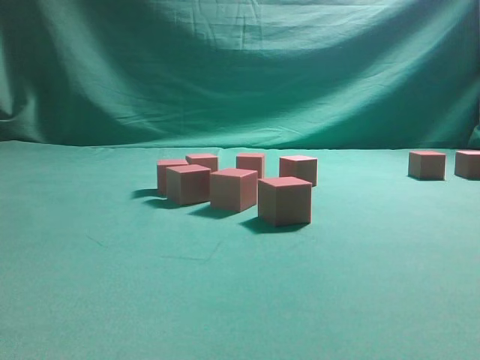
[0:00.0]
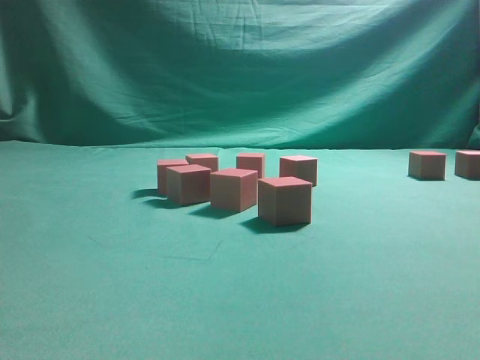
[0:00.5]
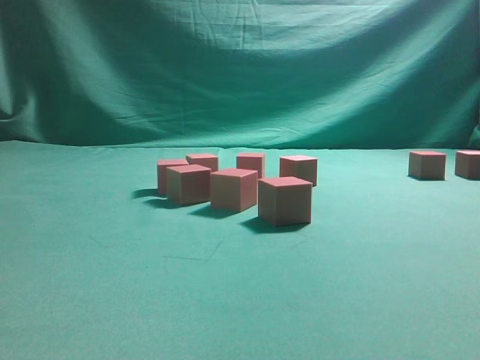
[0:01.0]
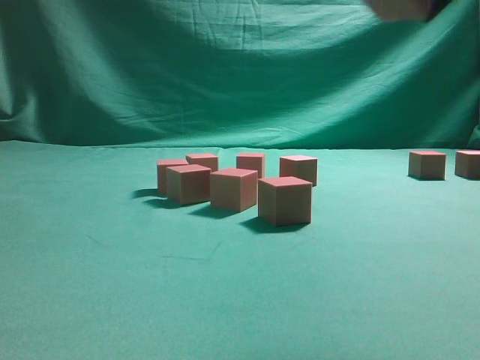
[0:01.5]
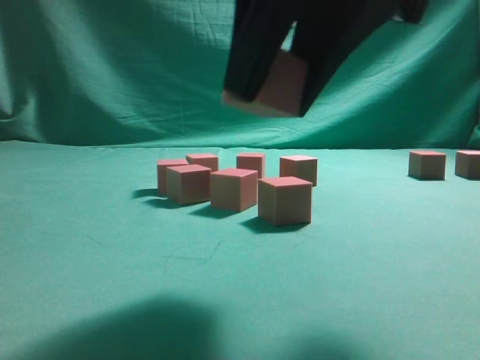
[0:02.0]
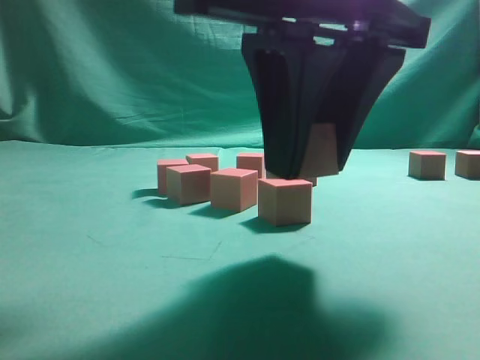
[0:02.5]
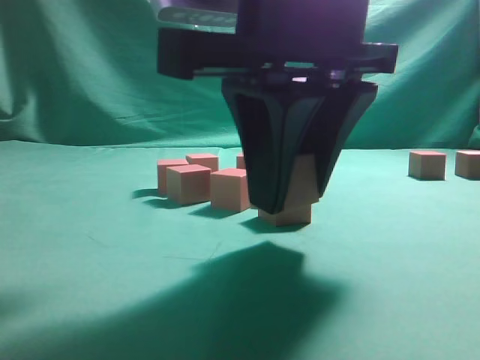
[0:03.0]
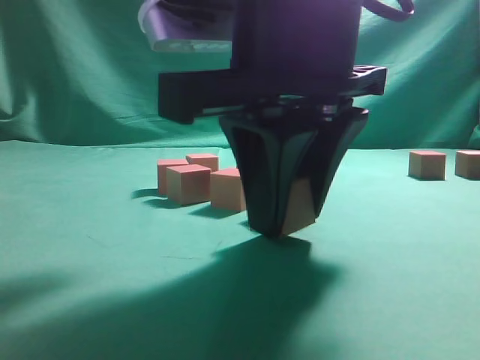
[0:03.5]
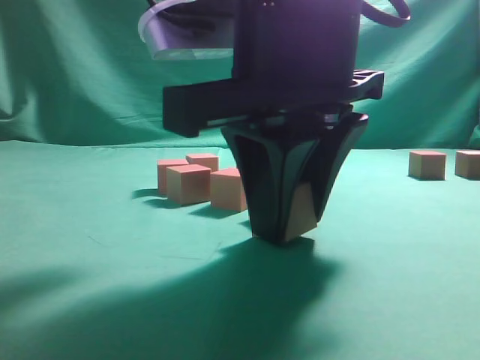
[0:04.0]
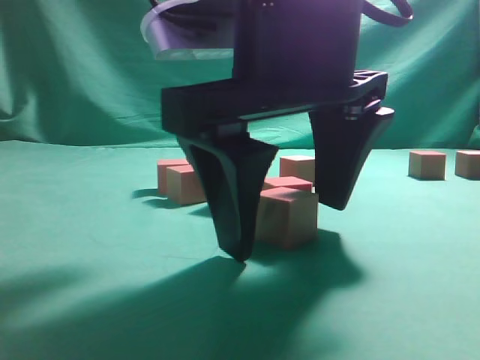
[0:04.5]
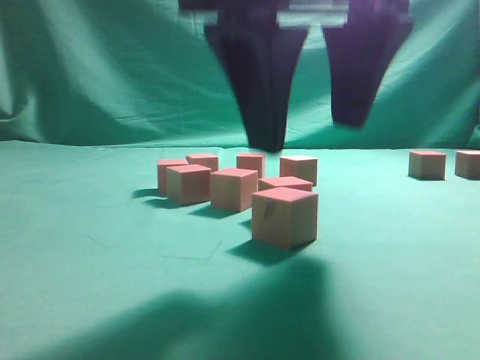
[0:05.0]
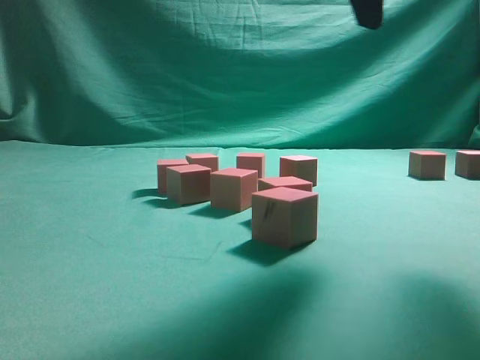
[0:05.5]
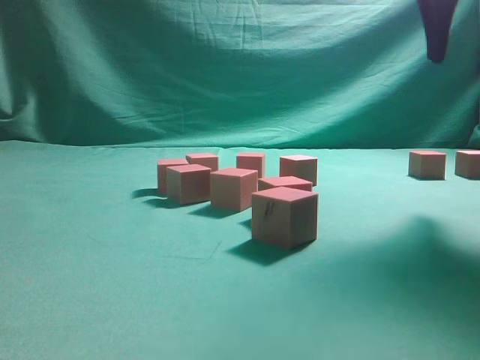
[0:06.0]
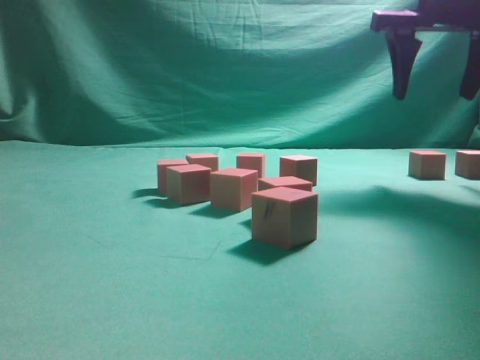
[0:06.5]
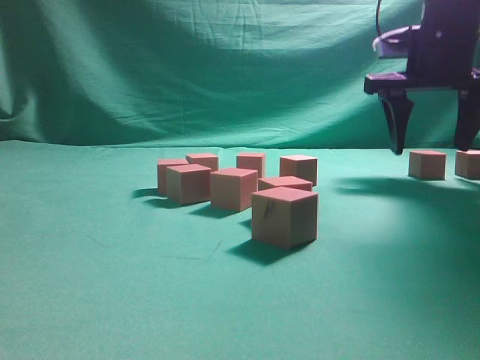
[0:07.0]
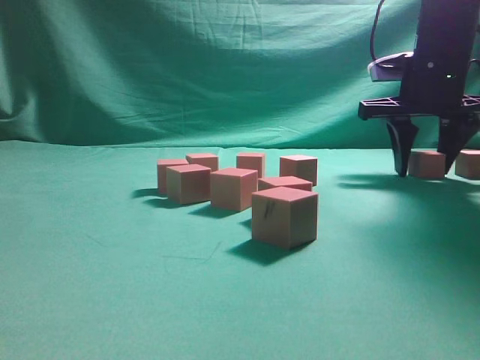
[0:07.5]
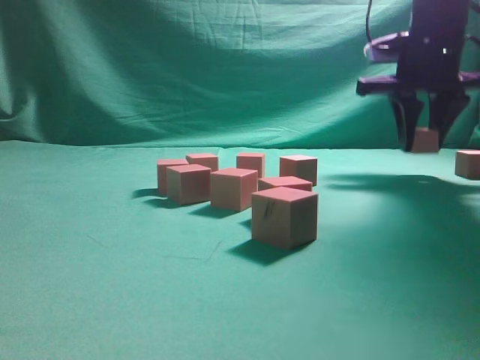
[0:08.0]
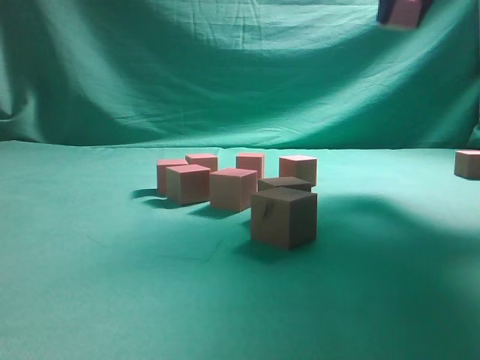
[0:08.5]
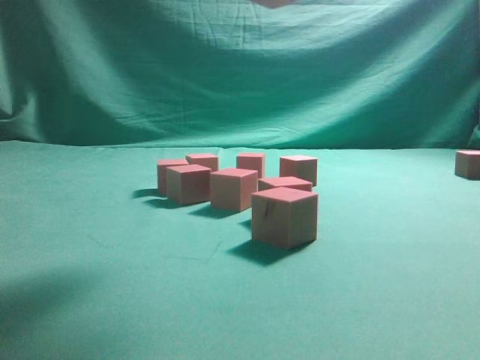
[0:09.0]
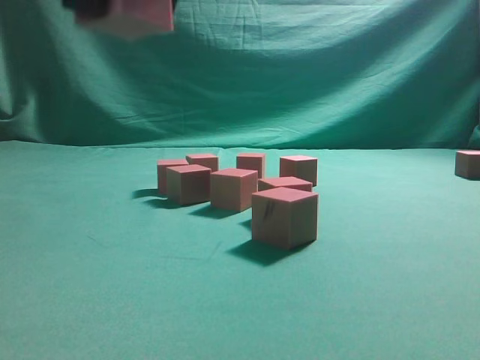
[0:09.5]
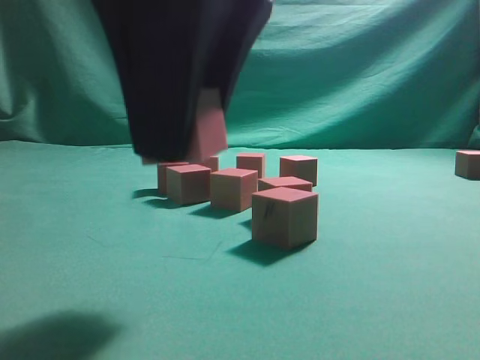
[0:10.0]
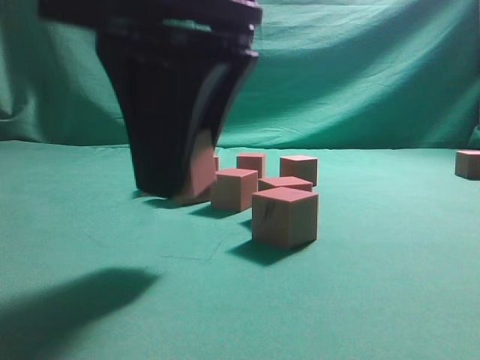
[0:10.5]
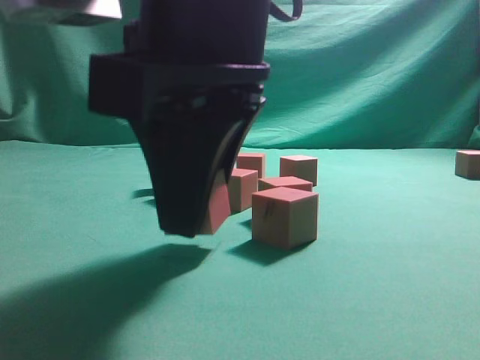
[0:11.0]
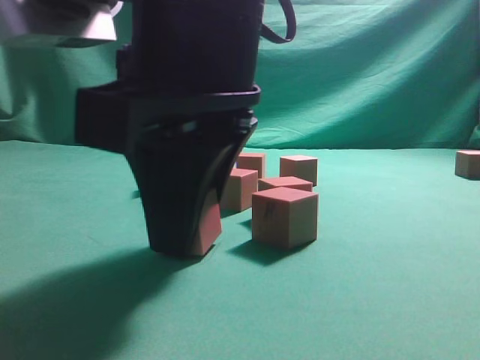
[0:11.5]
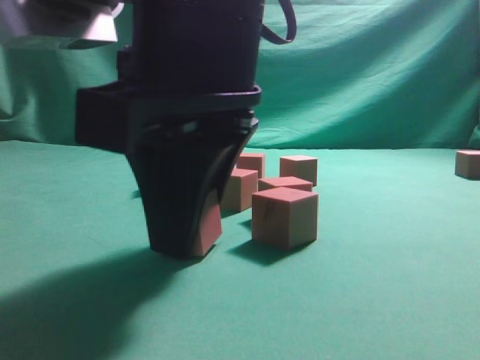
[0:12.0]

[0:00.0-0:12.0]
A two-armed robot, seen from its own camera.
Task of the whole recording: pick up the multiple cubes in two columns one by one and place them in another position on the table.
Step, 0:00.0 to 0:05.0: Place the block at the correct position to assemble the letter S.
Step, 0:05.5 to 0:08.0: Pick up the block on the table.
0:00.0 to 0:02.0: The right gripper shifts approximately 20 cm to the left and downward.
0:02.0 to 0:04.0: The right gripper goes roughly 5 cm downward.
0:04.0 to 0:06.0: The right gripper moves to the right, forward and upward, some 25 cm, and opens its fingers.
0:06.0 to 0:08.0: The right gripper goes approximately 15 cm forward and downward, and closes up.
0:08.0 to 0:10.0: The right gripper goes roughly 35 cm backward and to the left.
0:10.0 to 0:12.0: The right gripper shifts roughly 5 cm downward.

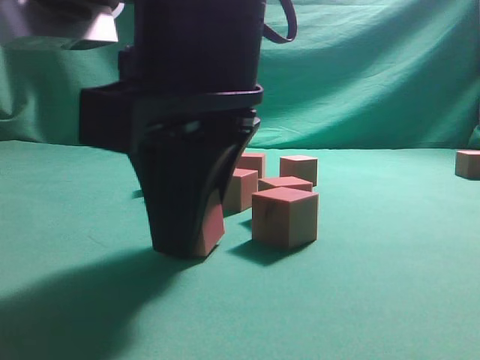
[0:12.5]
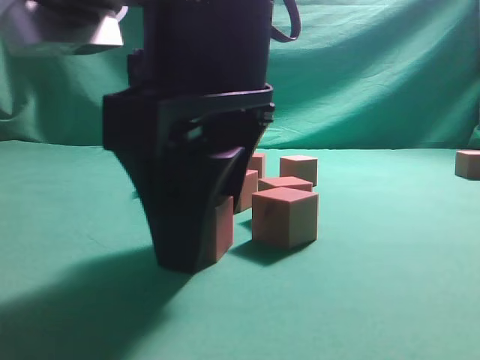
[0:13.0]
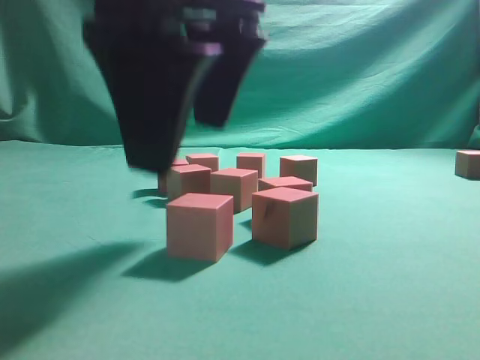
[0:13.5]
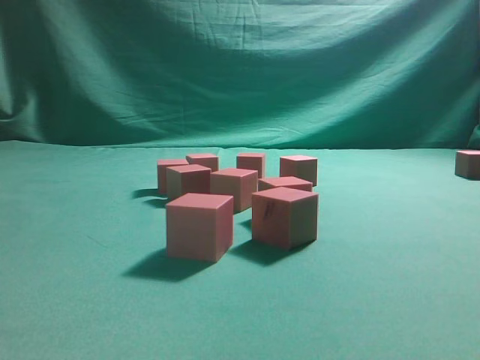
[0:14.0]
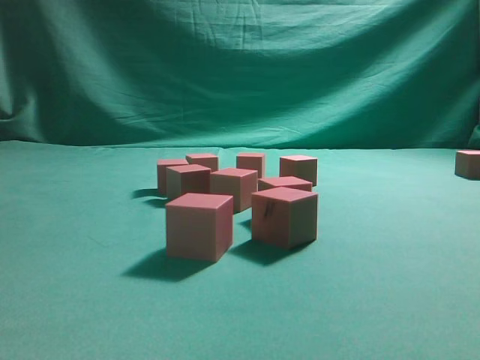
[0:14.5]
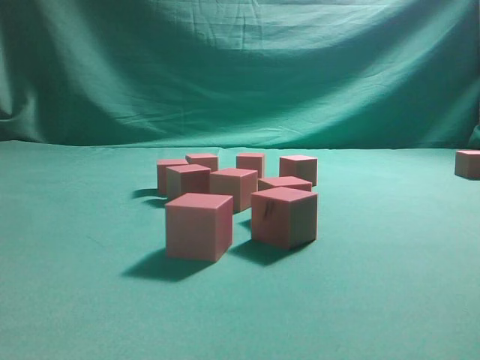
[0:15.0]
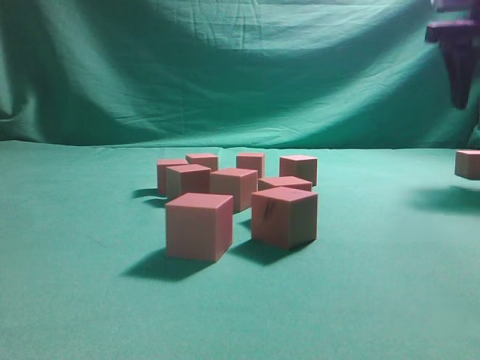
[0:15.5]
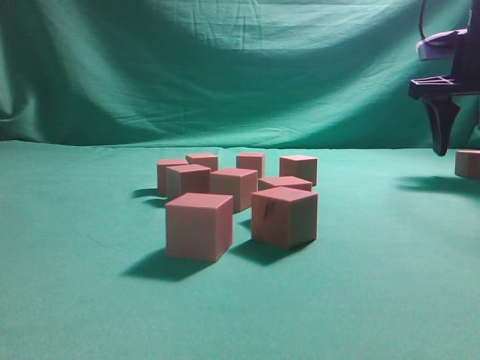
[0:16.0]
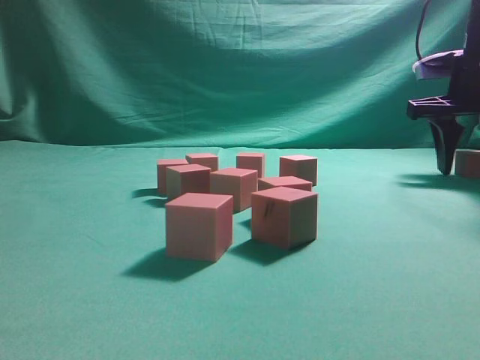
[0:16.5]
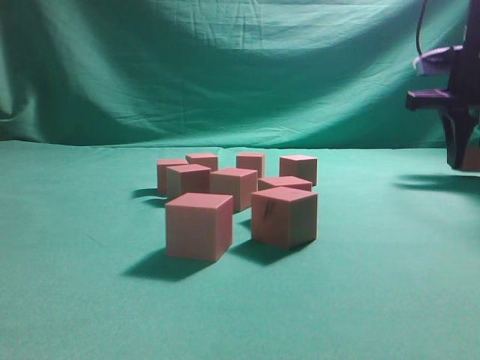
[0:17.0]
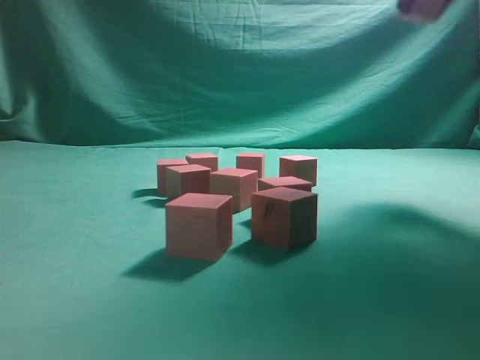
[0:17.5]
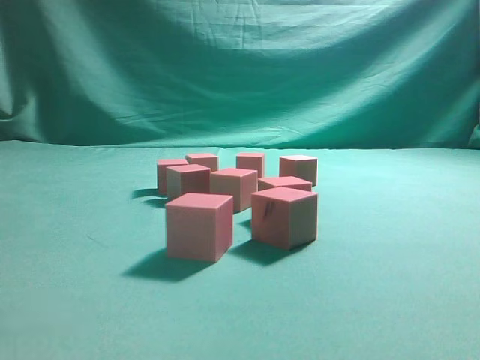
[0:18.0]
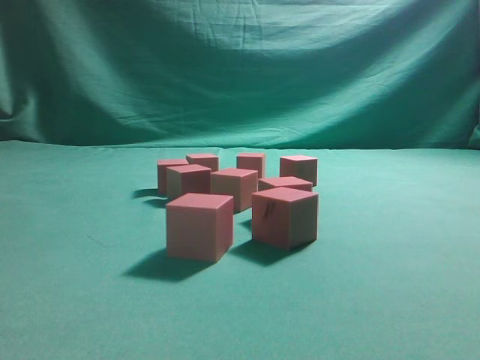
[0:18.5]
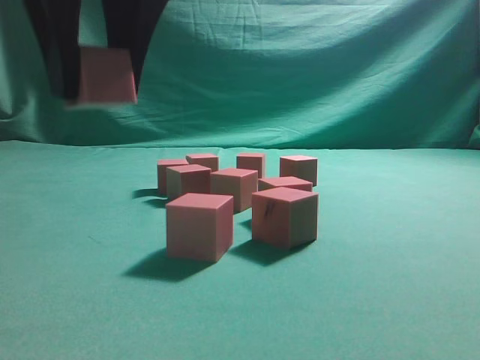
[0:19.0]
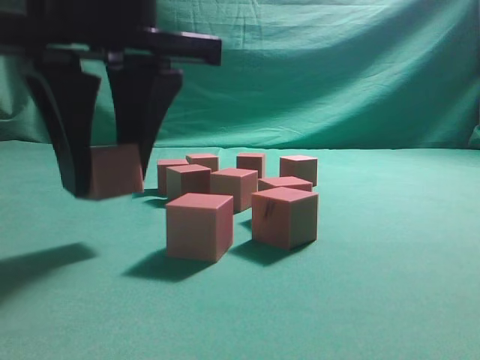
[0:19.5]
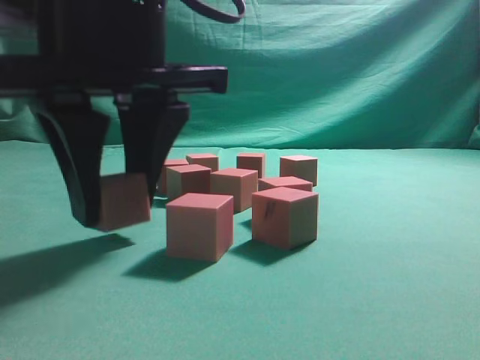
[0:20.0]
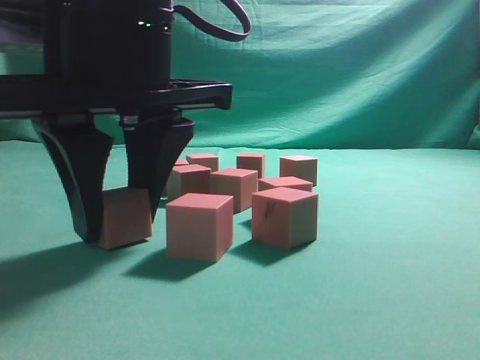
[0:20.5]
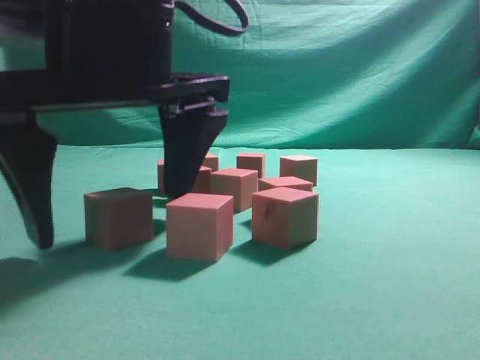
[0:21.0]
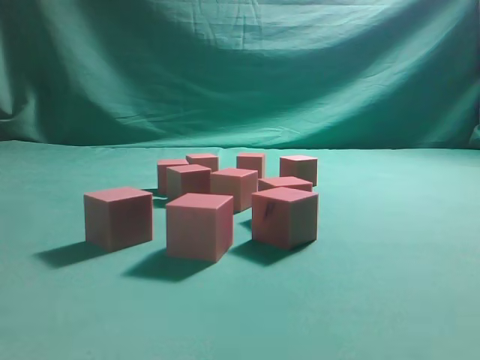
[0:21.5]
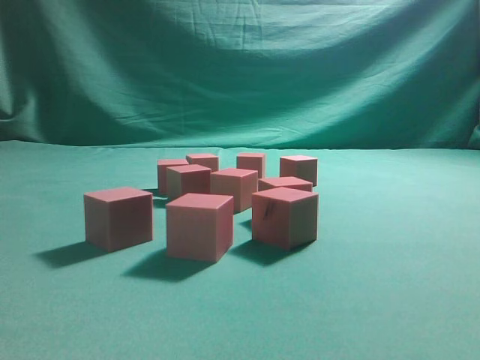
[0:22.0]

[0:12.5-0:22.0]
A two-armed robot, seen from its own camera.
Task of the whole recording: pick up the multiple cubes in two columns one by one and place them in another position on the table.
Step, 0:14.0 to 0:17.0: Pick up the block on the table.
Step, 0:17.5 to 0:21.0: Place the block at the correct position to assemble the letter S.
0:12.5 to 0:14.5: The right gripper goes approximately 30 cm upward and to the right, and opens its fingers.
0:14.5 to 0:16.5: The right gripper heads downward, forward and to the right, covering about 35 cm.
0:16.5 to 0:18.0: The right gripper heads upward, to the left and backward, covering about 30 cm, and closes up.
0:18.0 to 0:20.0: The right gripper shifts about 25 cm downward and to the left.
0:20.0 to 0:22.0: The right gripper travels upward by roughly 25 cm, and closes up.
